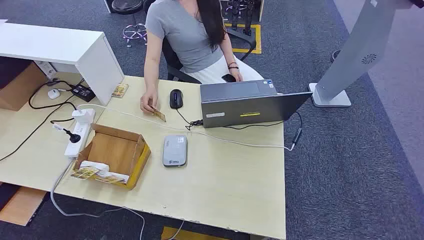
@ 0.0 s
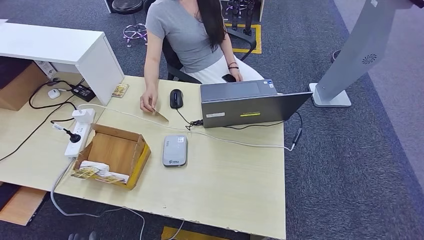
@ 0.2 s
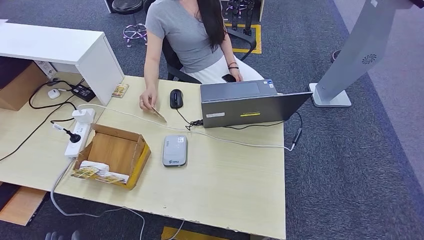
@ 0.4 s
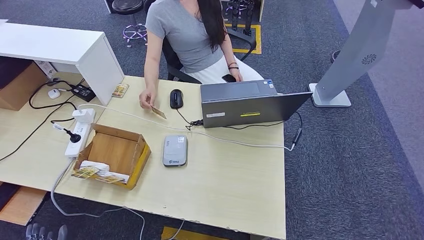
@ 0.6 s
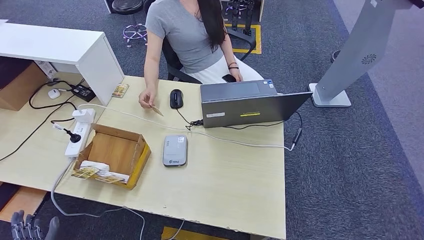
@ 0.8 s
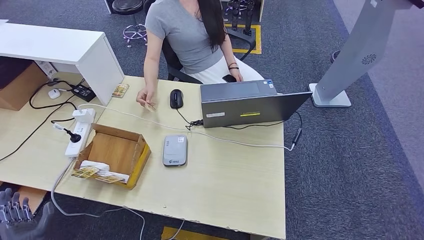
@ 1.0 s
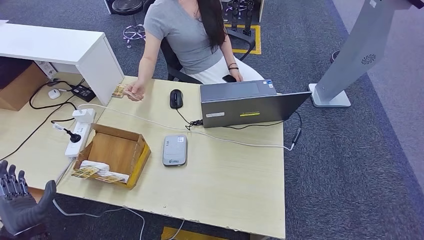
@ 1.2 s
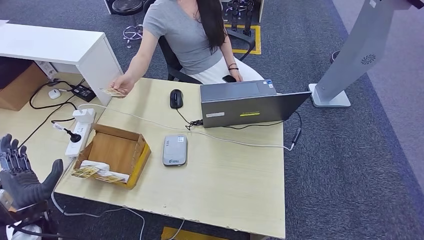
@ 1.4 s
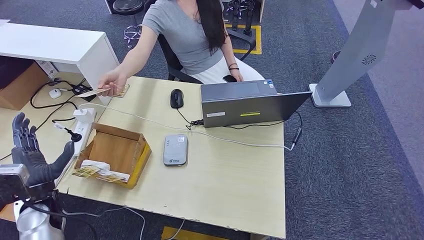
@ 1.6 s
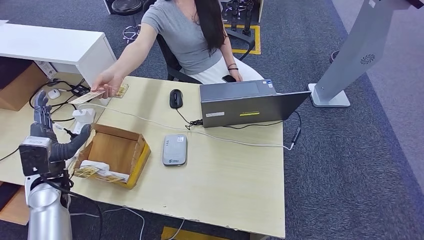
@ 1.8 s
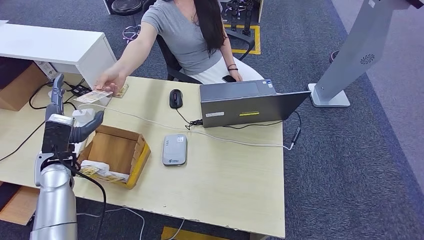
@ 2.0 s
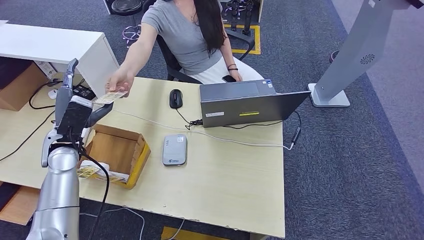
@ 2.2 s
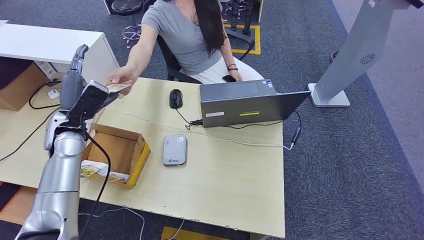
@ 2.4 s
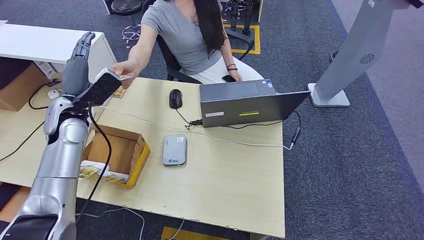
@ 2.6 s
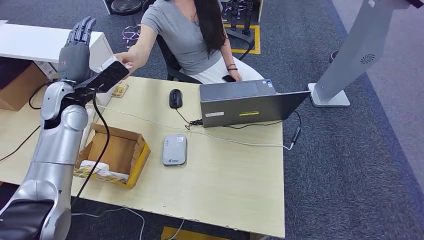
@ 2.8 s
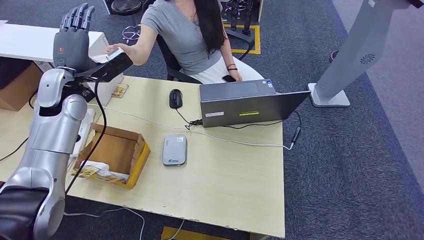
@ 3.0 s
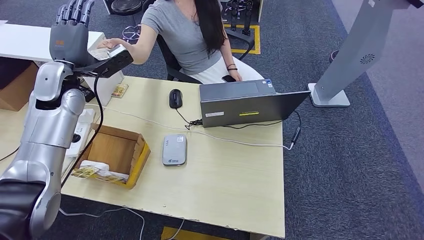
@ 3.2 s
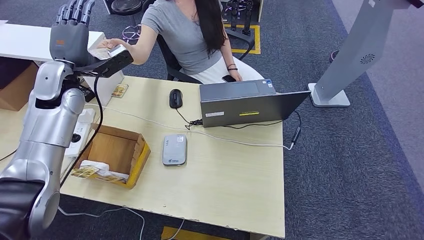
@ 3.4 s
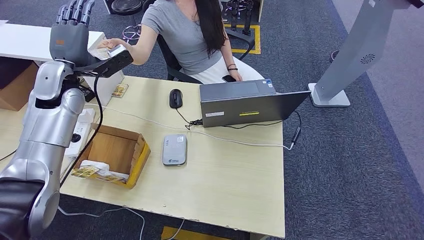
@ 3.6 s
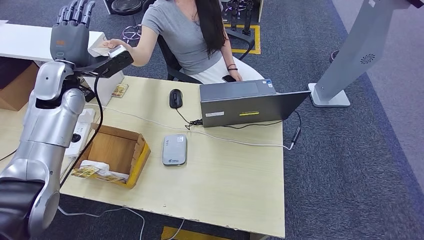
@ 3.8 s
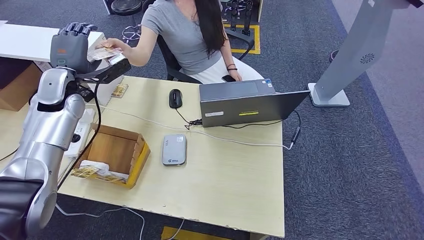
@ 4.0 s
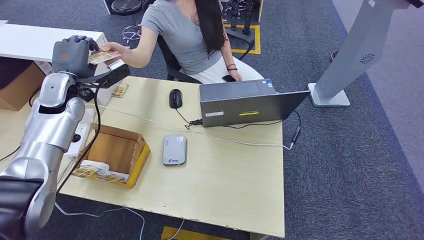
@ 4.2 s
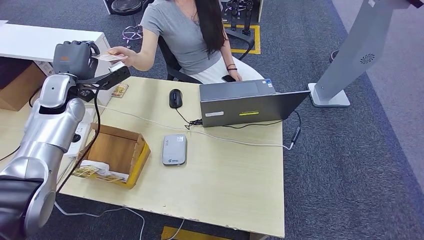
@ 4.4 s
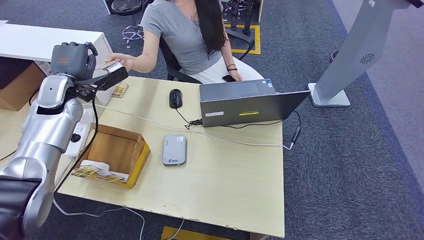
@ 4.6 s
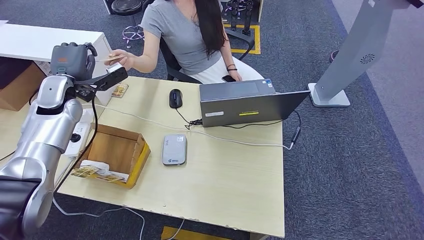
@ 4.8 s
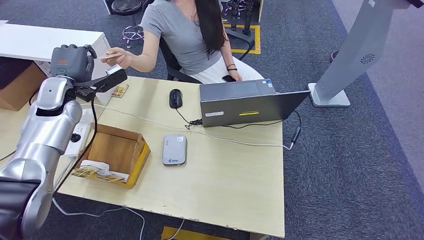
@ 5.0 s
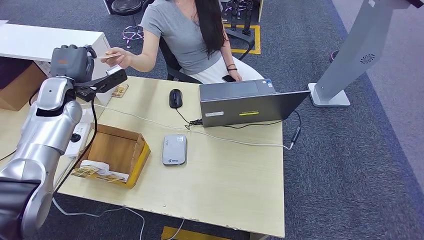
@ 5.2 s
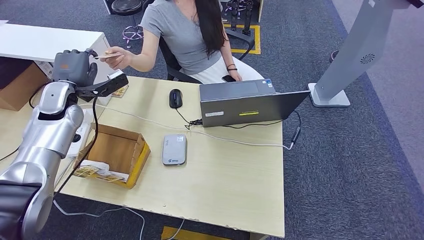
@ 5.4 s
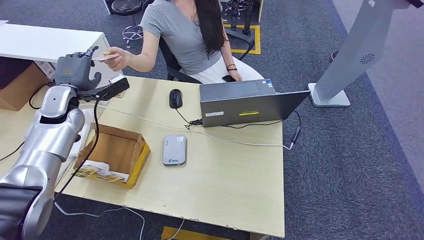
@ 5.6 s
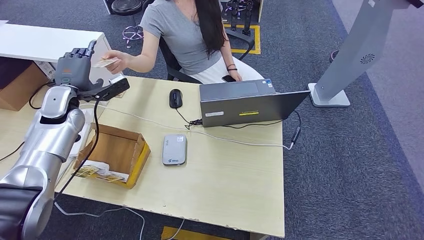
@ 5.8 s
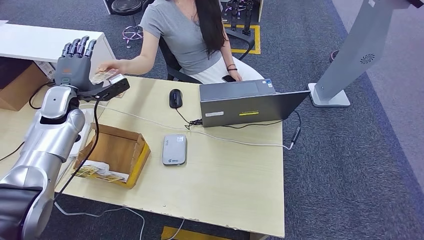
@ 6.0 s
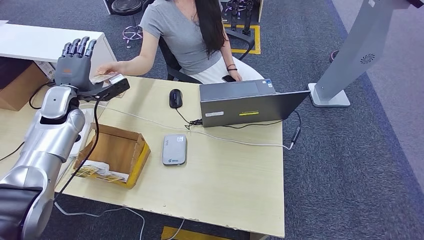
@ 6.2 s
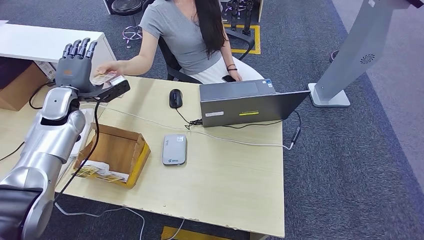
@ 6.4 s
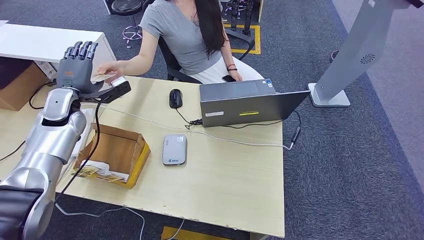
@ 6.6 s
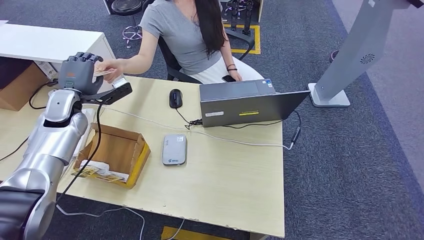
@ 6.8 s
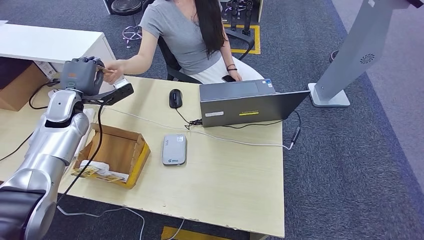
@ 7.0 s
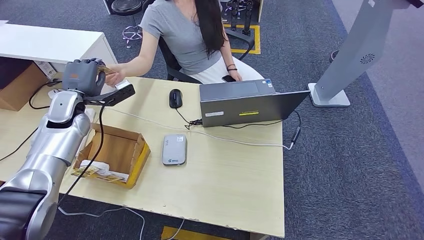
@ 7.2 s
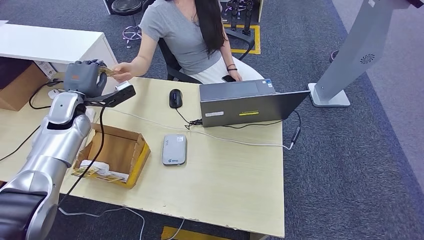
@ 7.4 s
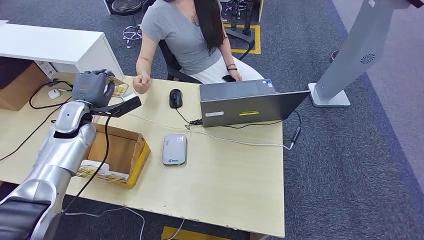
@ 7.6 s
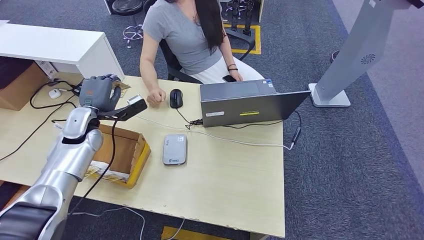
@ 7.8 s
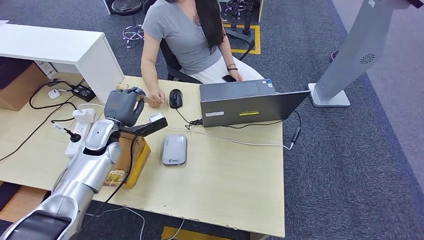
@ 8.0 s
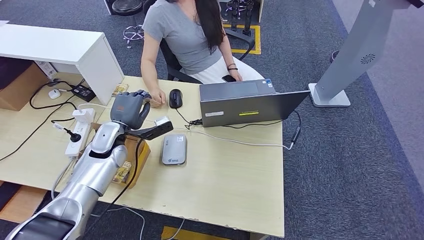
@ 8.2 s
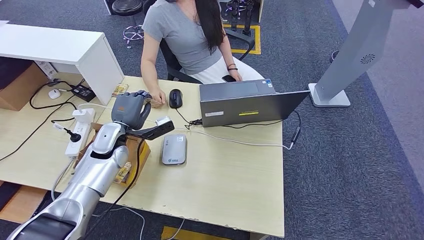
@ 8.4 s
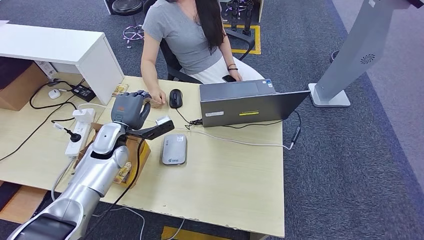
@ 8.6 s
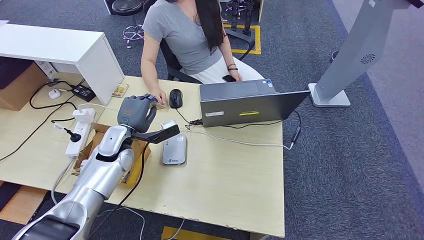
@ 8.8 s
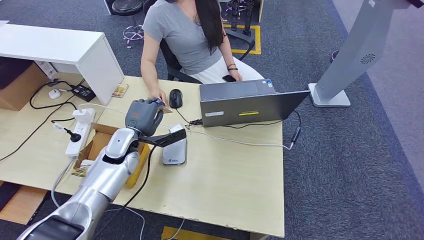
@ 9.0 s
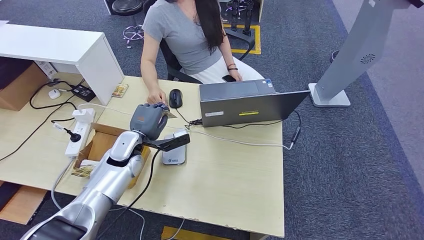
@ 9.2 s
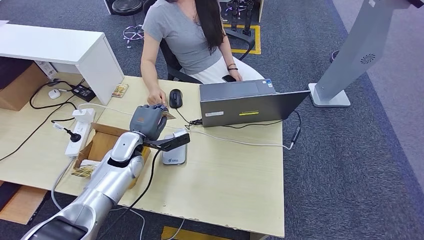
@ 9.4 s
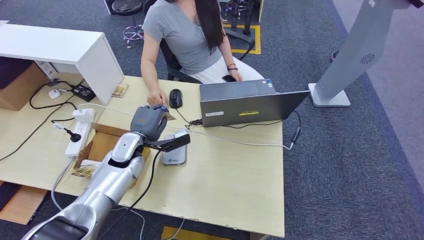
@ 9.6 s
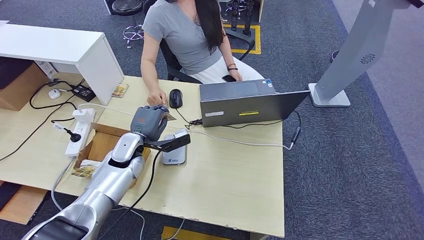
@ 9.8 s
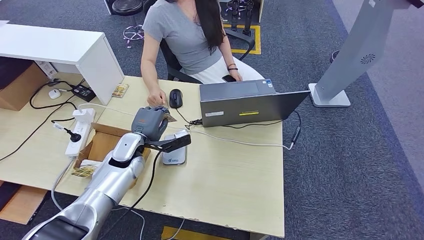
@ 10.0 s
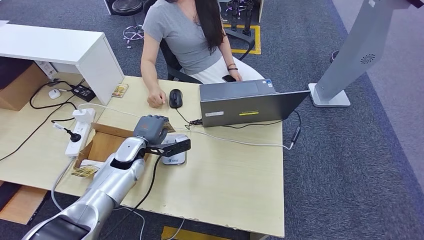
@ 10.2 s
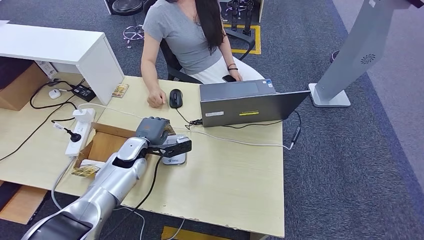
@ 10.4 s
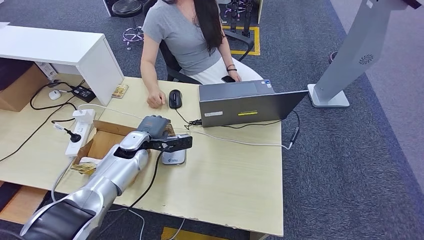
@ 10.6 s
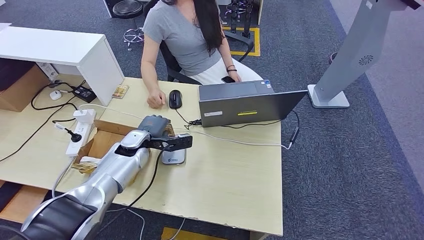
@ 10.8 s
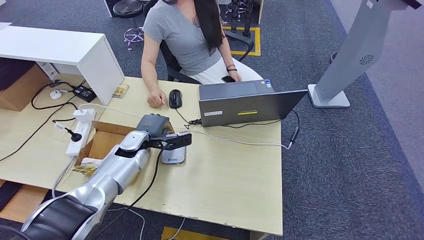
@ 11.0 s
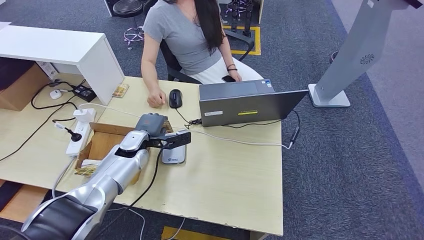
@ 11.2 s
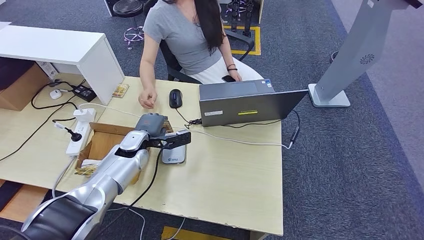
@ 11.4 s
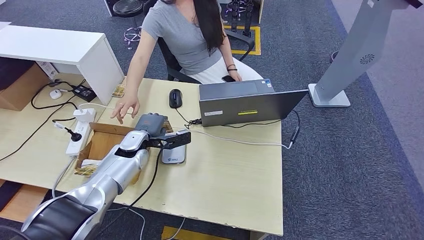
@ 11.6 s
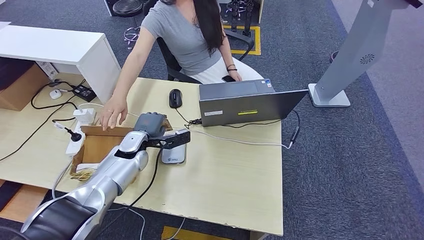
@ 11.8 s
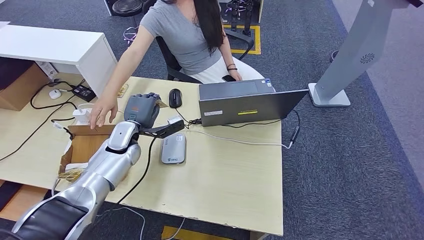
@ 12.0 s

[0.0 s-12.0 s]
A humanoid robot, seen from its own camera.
Step, 0.0 to 8.2 s: Take the ID card from the person's hand.
Step, 9.0 to 10.6 s: Place the ID card on the card reader.
1.6 to 3.0 s: The left hand moves forward and upward, about 30 cm.
3.0 to 4.4 s: The left hand ends up approximately 5 cm from where it was.
4.4 to 6.0 s: The hands stay close to where they were, moving slightly.
6.0 to 7.6 s: There are only small adjustments of the hands.
7.6 to 9.0 s: The left hand travels to the right and downward by some 15 cm.
10.4 to 12.0 s: The hands make only small movements.

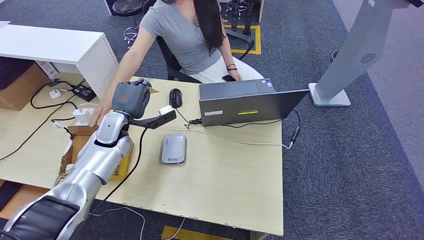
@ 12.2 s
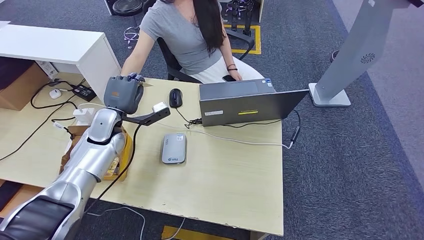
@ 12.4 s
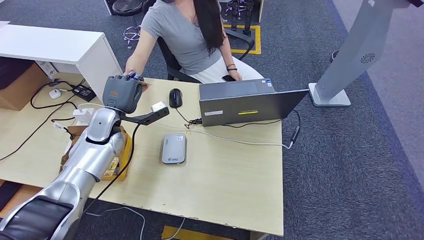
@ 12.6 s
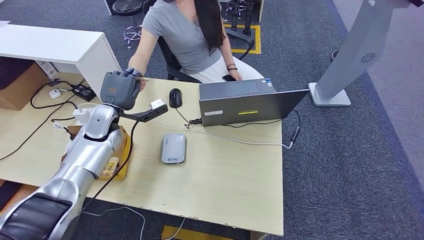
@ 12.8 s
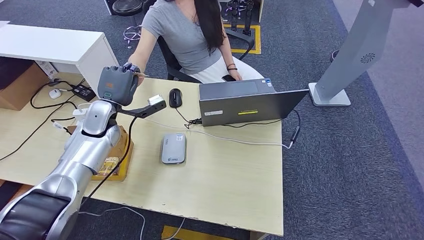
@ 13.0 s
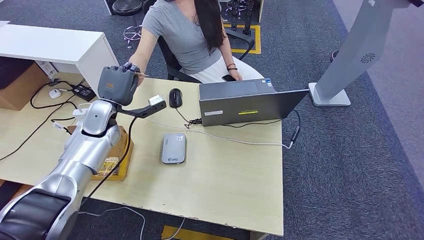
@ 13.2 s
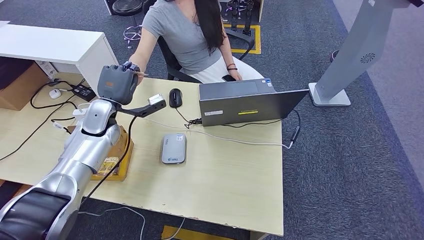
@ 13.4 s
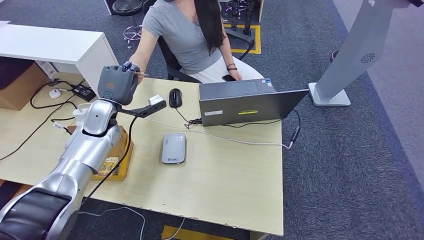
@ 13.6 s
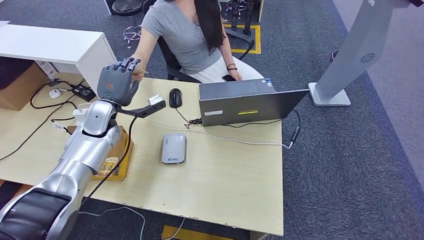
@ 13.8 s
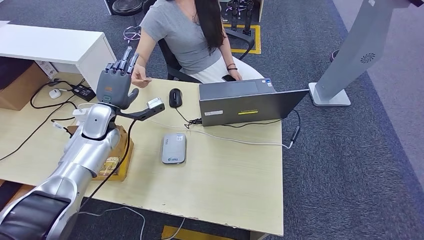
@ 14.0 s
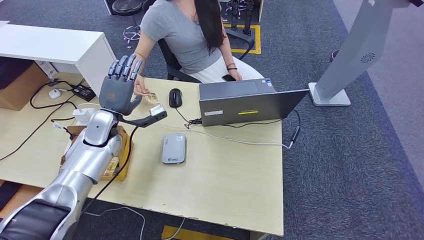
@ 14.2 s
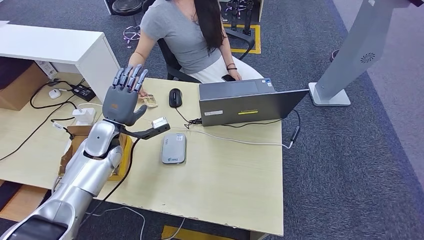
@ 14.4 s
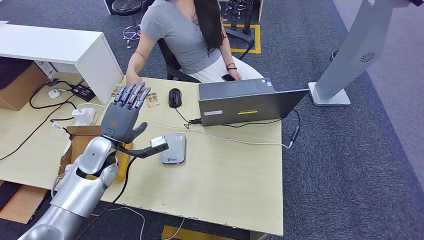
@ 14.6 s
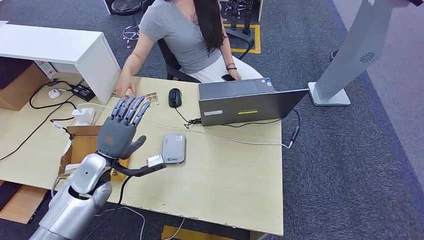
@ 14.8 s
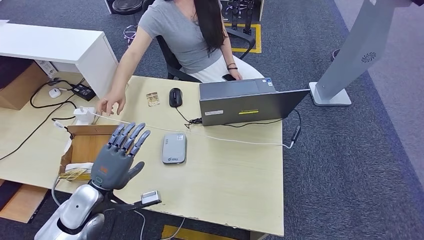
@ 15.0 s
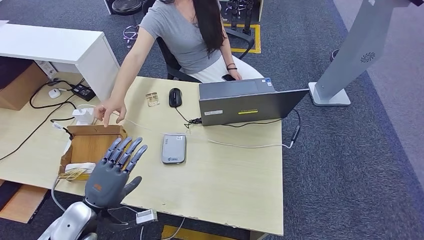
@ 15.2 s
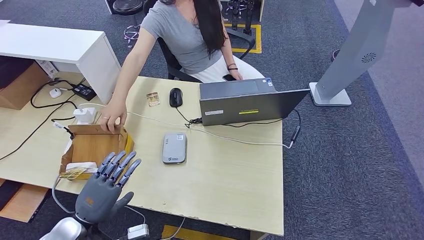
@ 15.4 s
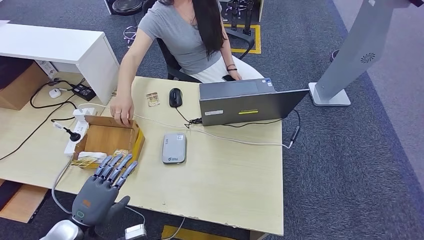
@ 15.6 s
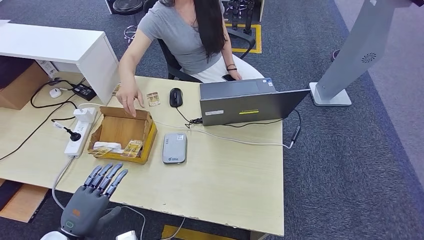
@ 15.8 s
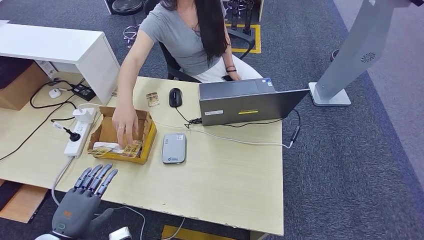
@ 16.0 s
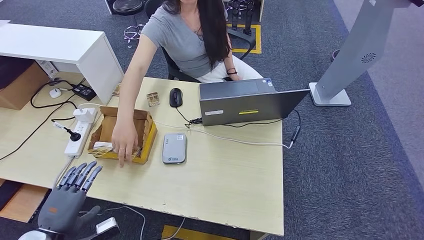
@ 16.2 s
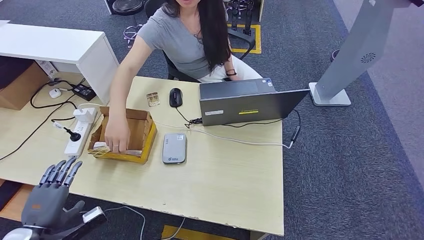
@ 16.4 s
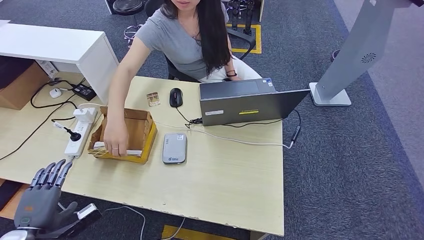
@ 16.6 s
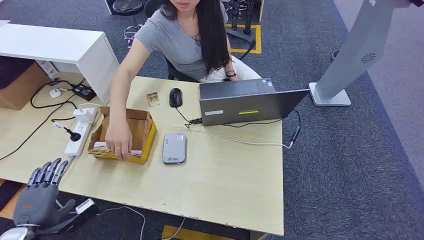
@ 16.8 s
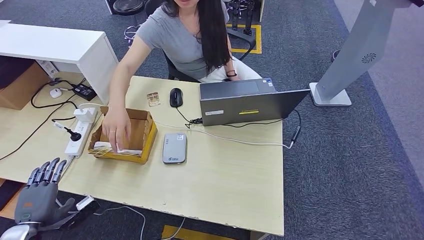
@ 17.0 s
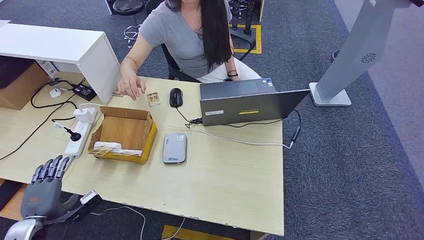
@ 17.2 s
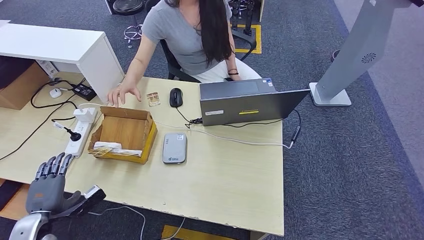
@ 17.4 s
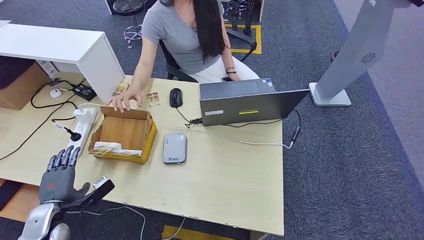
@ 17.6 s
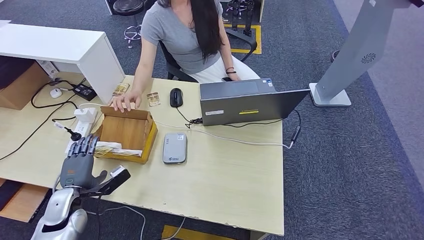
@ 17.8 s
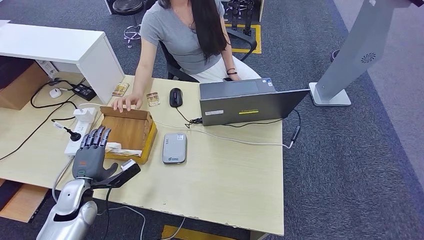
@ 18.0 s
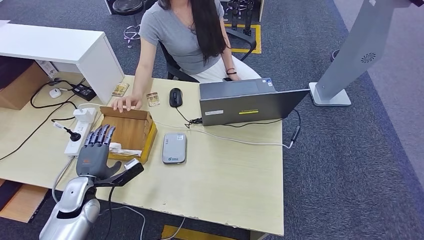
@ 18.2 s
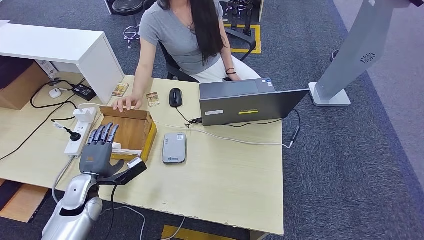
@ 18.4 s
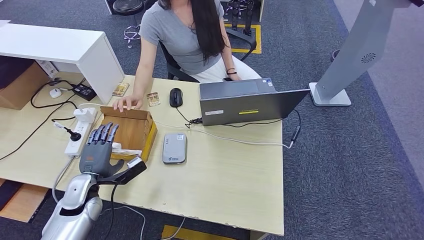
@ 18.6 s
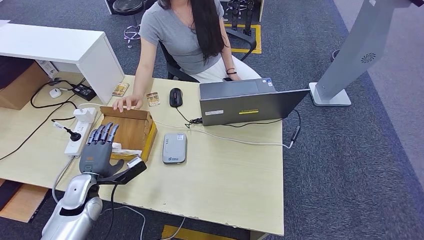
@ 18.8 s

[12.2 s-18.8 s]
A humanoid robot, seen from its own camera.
Step, 12.2 to 14.8 s: Hand the ID card to the person.
12.2 to 13.8 s: The hands make only small movements.
13.8 to 15.4 s: The left hand goes about 30 cm backward.
15.4 to 17.2 s: The left hand travels to the left by roughly 10 cm.
17.2 to 18.8 s: The left hand moves forward and to the right, some 15 cm.
